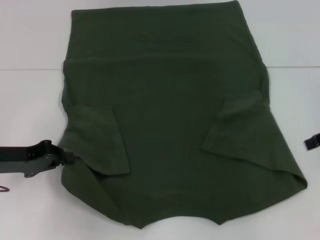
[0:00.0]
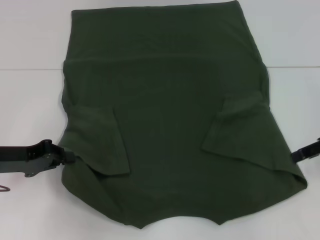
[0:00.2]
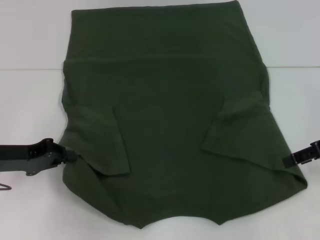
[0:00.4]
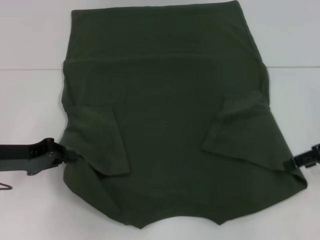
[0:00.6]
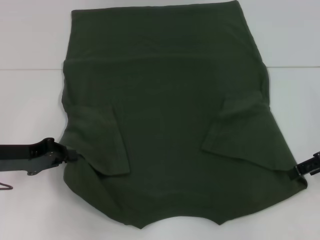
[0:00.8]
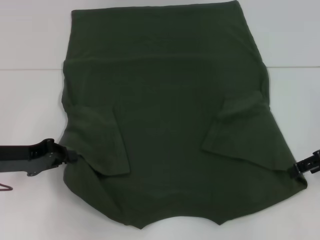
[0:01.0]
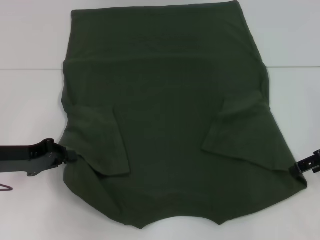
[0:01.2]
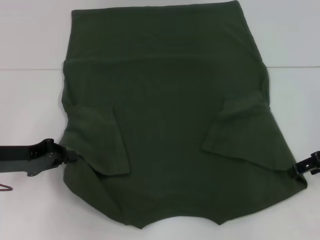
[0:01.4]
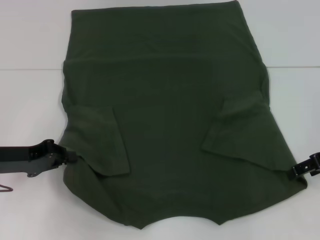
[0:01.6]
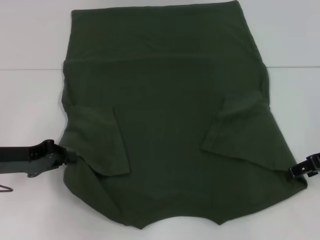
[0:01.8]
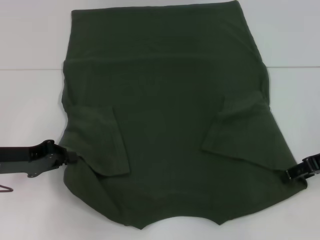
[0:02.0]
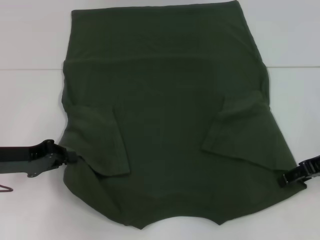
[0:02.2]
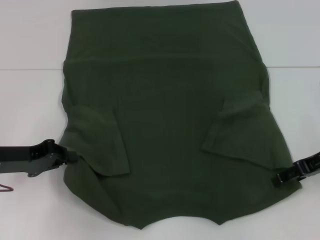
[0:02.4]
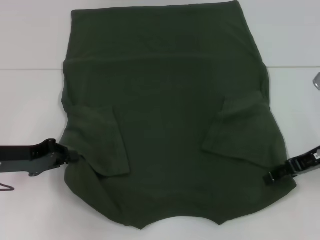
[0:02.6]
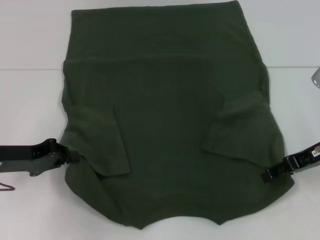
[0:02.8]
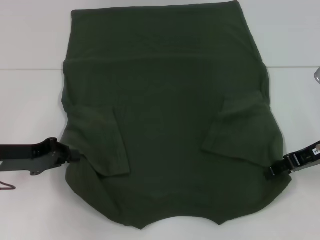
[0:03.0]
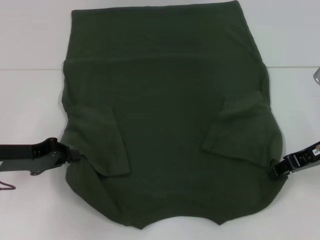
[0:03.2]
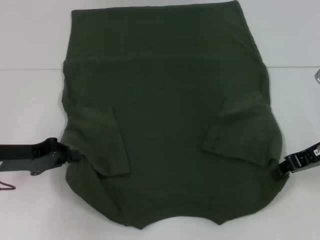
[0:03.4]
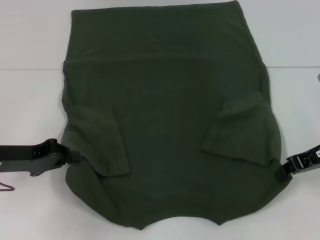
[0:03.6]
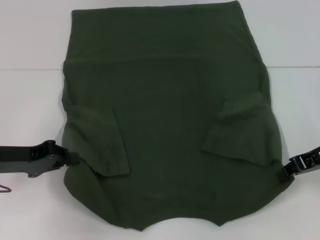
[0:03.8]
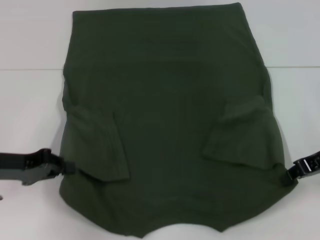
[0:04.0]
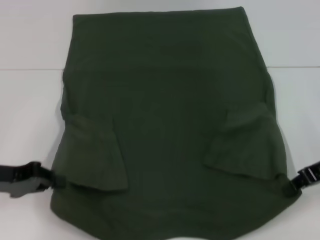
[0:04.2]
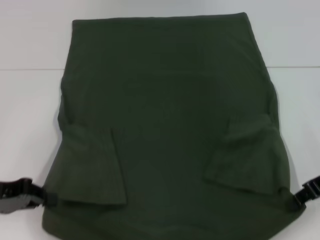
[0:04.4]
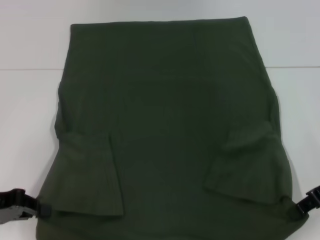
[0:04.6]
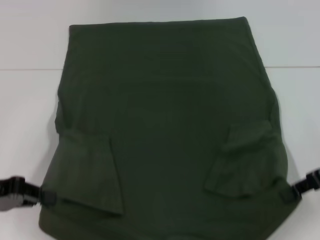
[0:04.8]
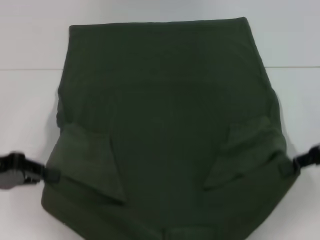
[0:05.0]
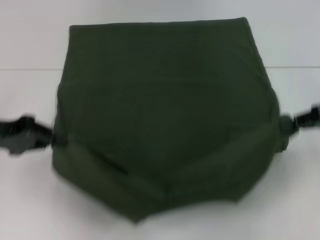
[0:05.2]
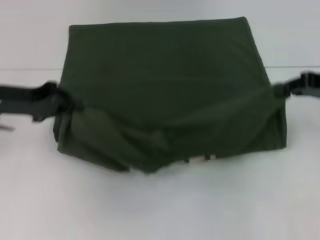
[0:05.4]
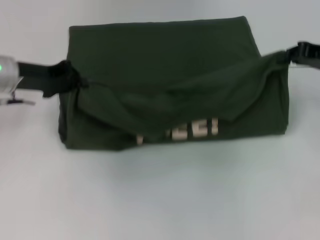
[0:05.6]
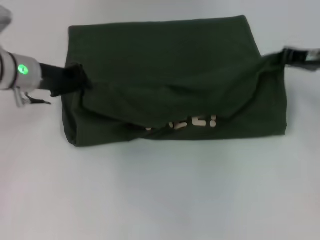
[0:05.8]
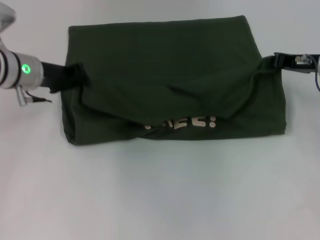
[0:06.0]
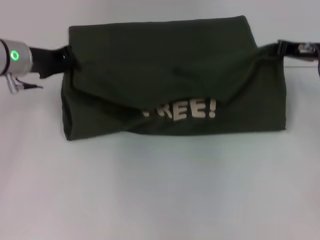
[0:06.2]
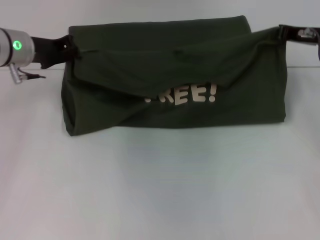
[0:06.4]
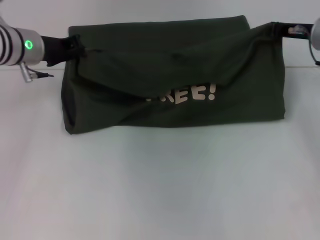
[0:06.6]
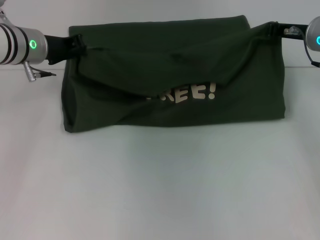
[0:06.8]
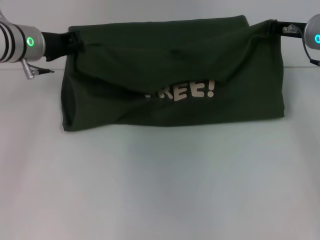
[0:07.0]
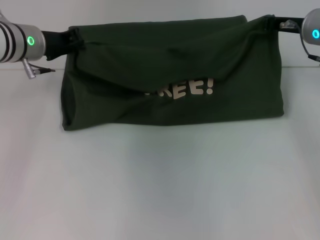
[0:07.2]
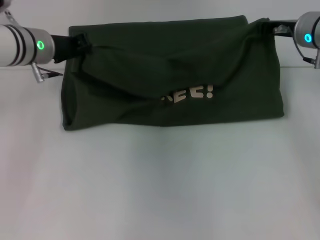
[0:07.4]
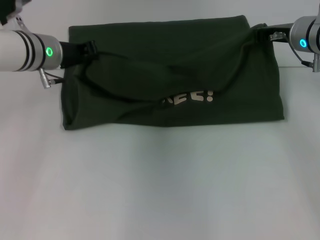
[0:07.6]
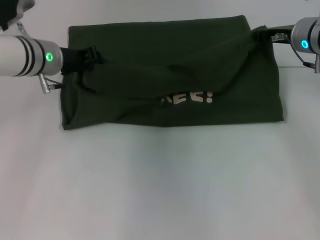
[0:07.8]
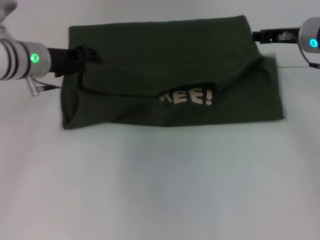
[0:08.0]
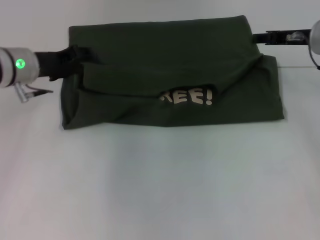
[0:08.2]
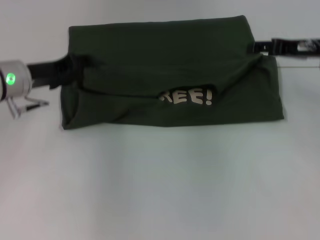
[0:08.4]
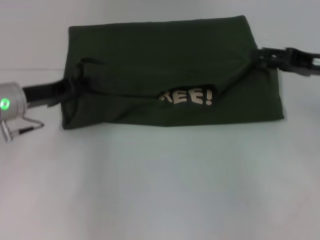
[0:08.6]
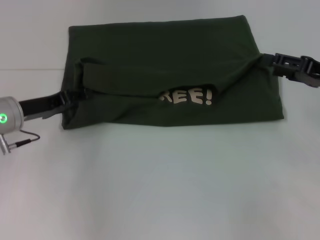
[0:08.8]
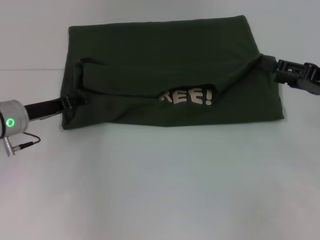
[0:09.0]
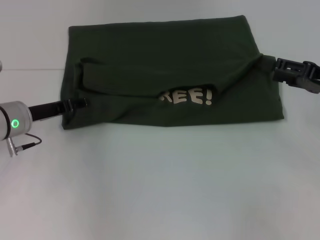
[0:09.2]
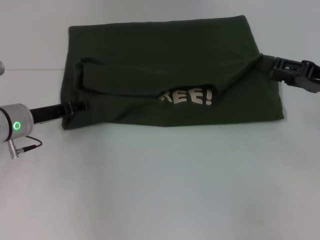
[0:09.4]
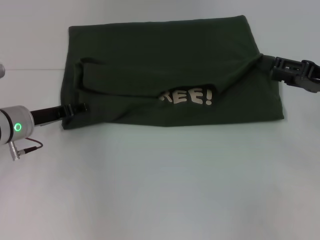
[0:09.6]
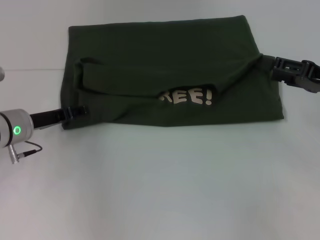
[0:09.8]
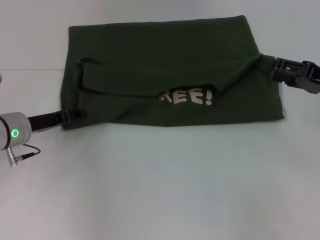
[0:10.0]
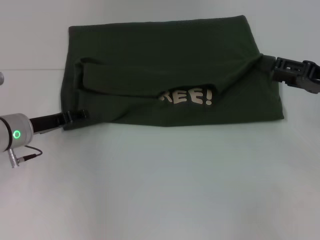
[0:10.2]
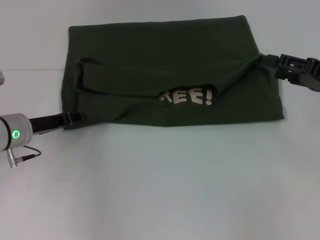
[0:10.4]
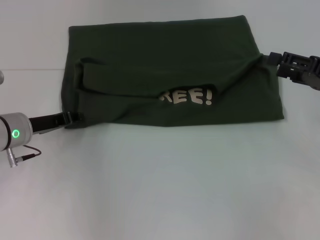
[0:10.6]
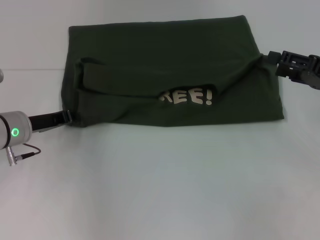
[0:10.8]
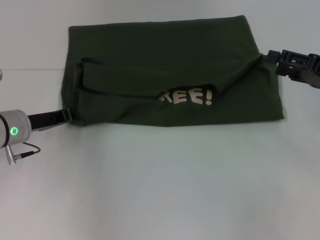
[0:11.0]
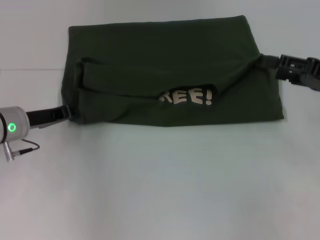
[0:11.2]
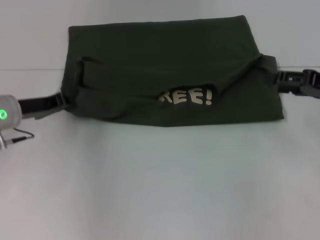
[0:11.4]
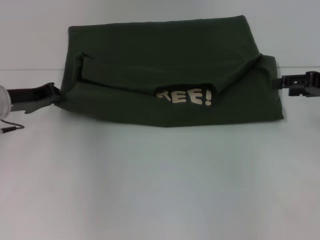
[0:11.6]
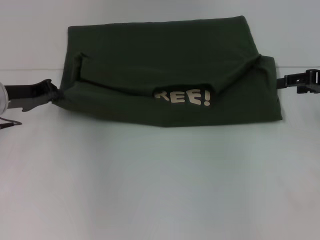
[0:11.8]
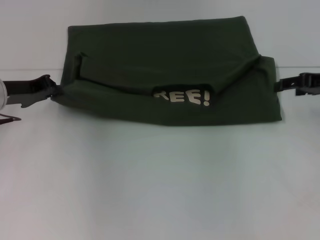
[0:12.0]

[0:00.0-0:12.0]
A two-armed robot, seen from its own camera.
Step, 0.0 to 3.6 s: Grab the bottom right corner with your right hand.
Step, 3.8 to 8.4 s: Fold the clothes with your left hand.
Step, 3.8 to 8.4 s: Fold the clothes with your right hand.
0.0 to 1.6 s: The right gripper shifts by about 5 cm.
1.6 to 3.0 s: There are only small adjustments of the grippers.
3.0 to 4.4 s: The right gripper closes its fingers; the left gripper ends up some 5 cm from where it was.
4.4 to 6.0 s: The left gripper travels forward and to the right by about 20 cm. The right gripper heads forward, covering about 10 cm.
6.0 to 7.6 s: The right gripper moves to the left, approximately 5 cm.
7.6 to 9.0 s: The right gripper heads backward and to the right, covering roughly 15 cm, and opens, while the left gripper shifts approximately 15 cm backward, downward and to the left, and opens.
9.0 to 10.4 s: There are only small adjustments of the grippers.
10.4 to 12.0 s: The right gripper moves forward, approximately 5 cm, while the left gripper travels upward by roughly 5 cm, and closes up.

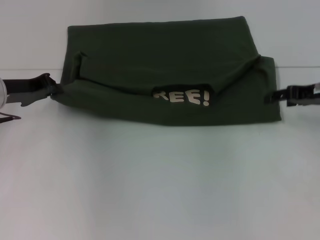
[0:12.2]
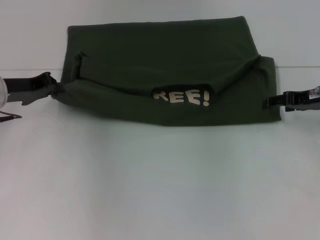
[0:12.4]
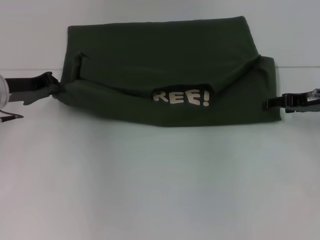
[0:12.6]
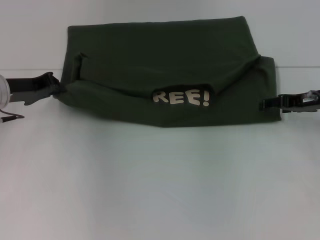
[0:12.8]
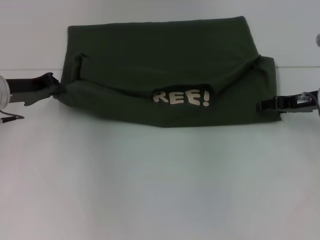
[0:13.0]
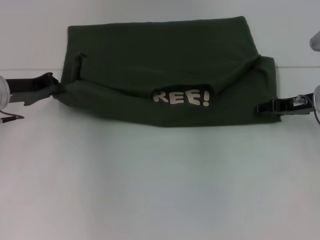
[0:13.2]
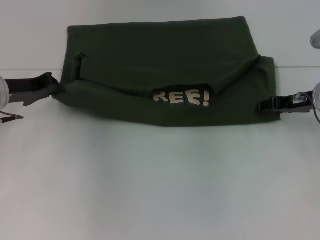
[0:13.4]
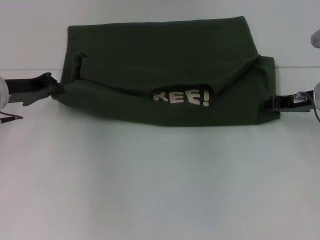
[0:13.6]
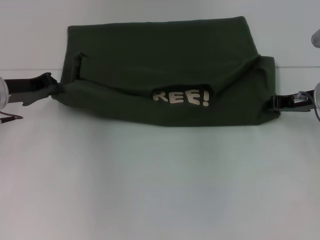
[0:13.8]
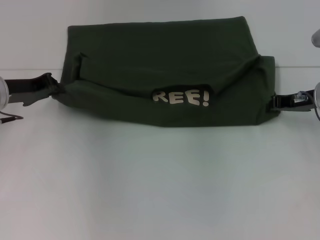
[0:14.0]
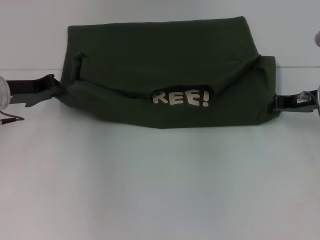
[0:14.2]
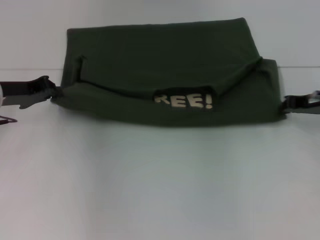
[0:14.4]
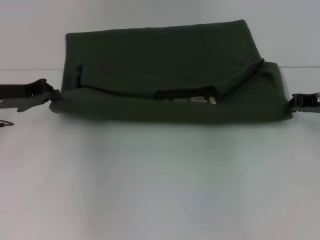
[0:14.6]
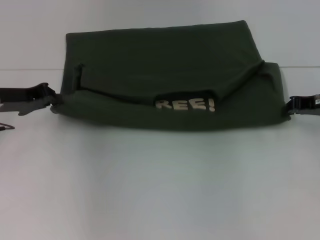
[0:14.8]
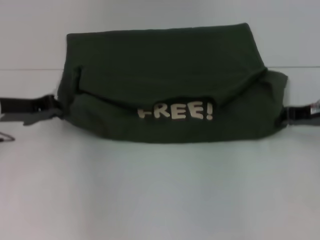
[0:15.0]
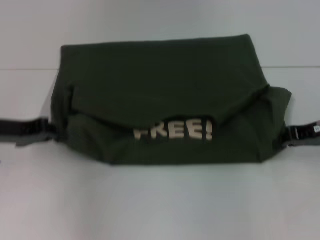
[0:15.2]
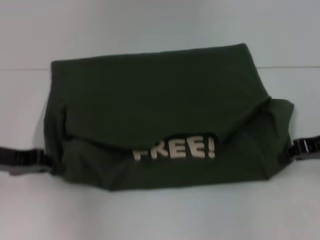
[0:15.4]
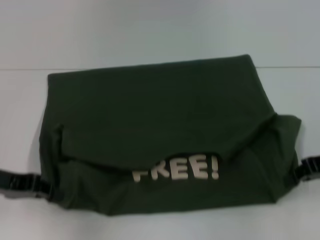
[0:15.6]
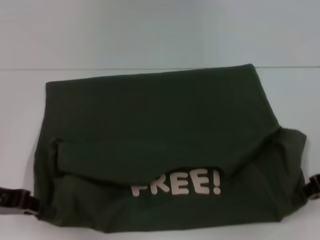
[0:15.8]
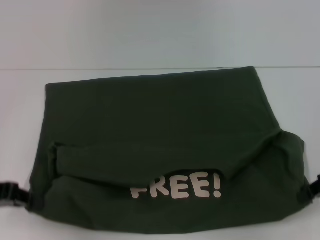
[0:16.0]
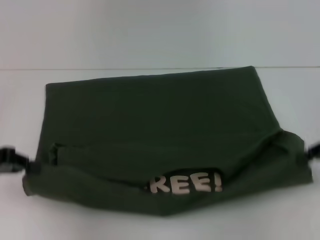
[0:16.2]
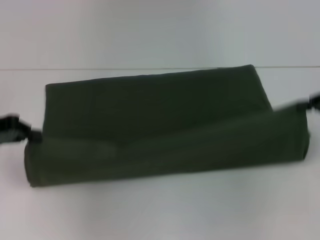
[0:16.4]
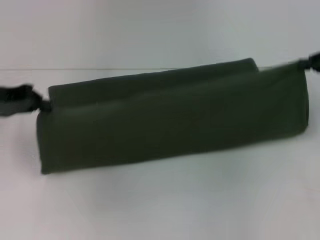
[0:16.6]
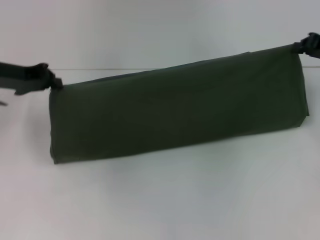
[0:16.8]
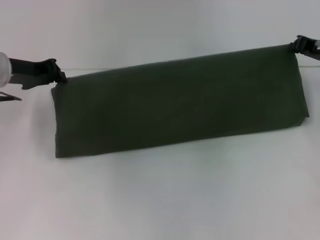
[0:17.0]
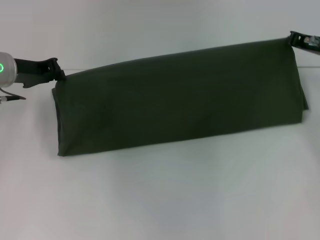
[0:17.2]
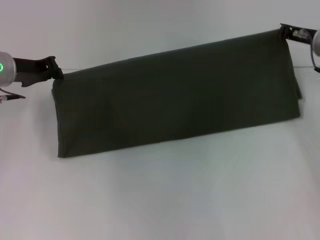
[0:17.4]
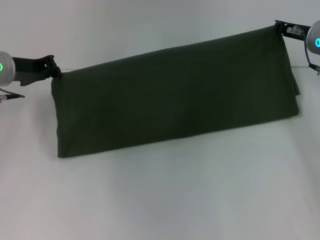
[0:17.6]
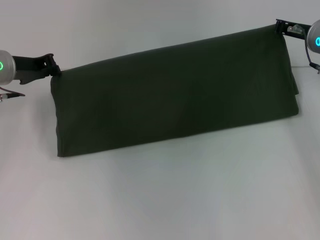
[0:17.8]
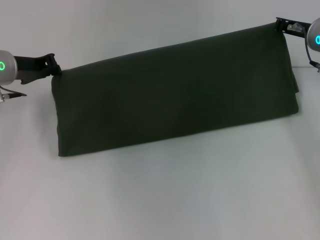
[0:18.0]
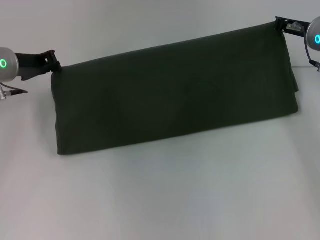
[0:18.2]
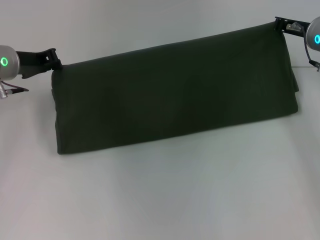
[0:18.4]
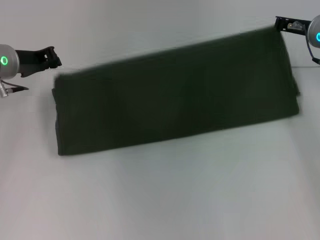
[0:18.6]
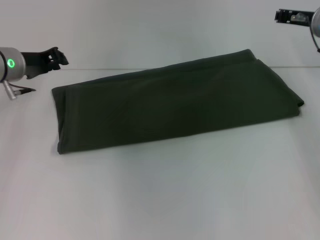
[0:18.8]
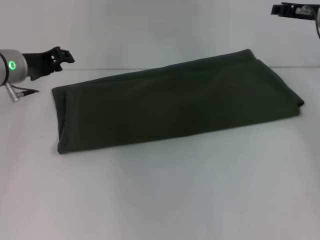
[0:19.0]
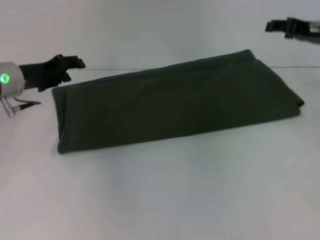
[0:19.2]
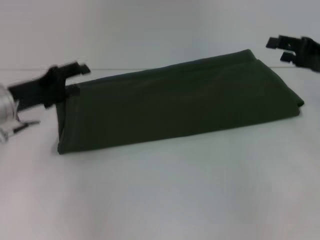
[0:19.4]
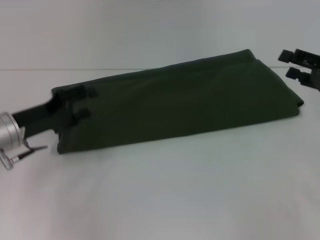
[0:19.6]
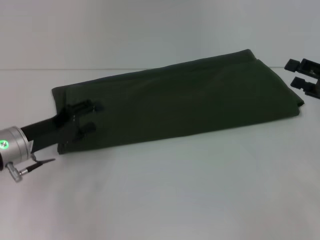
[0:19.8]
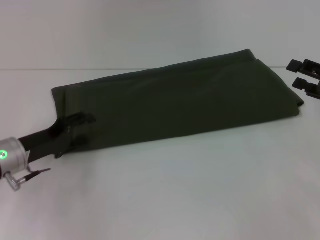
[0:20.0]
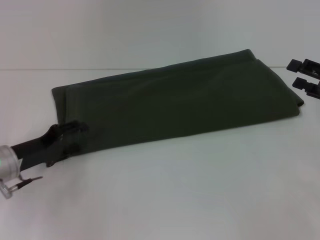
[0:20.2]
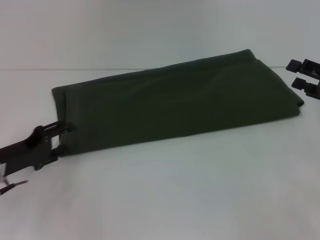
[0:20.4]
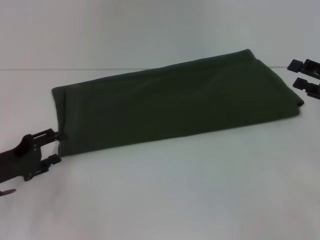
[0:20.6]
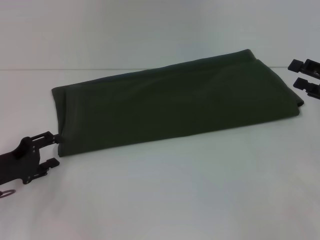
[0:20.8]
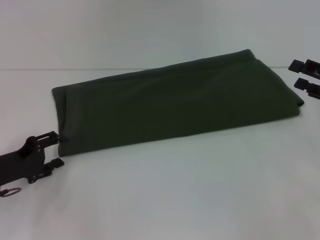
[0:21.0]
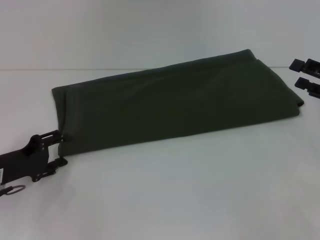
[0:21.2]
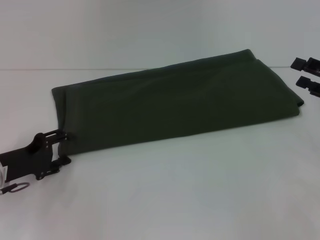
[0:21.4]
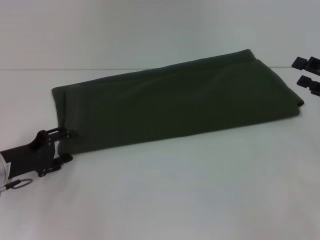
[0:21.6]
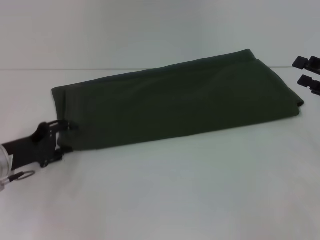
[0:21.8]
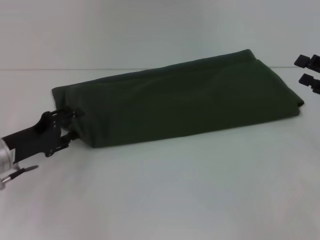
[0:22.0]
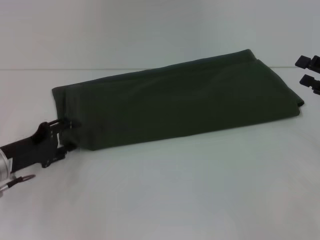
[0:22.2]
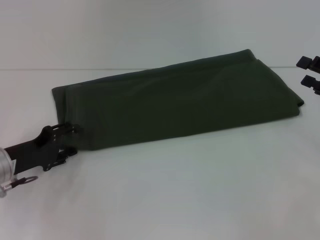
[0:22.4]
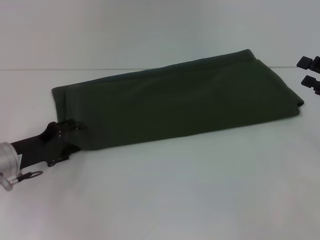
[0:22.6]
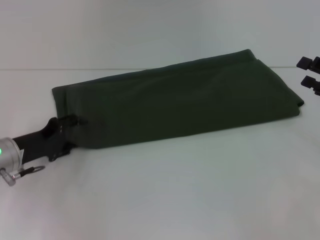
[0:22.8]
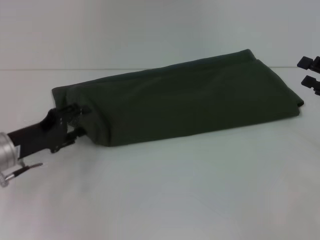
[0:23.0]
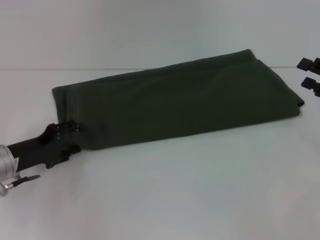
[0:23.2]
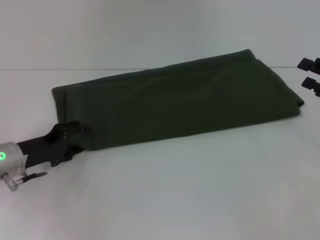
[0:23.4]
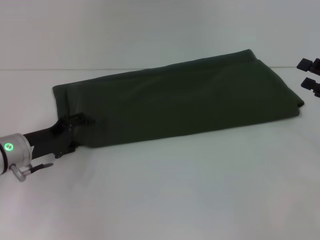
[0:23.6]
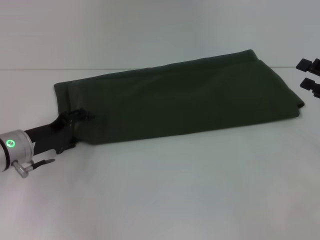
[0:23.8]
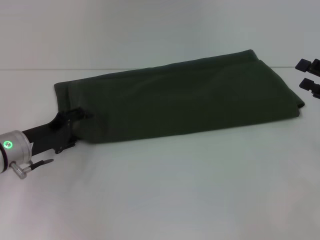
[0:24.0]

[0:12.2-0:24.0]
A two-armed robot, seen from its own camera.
Step, 12.2 to 15.8 s: Pull the clothes with your left hand.
Step, 12.2 to 15.8 s: Pull the clothes with your right hand.
Step, 16.0 to 19.0 s: Fold the clothes with your right hand.
12.2 to 13.6 s: The grippers stay close to where they were, moving slightly.
13.6 to 15.2 s: The grippers both shift backward by some 5 cm. The right gripper closes up.
15.2 to 16.6 s: The left gripper moves about 5 cm. Meanwhile the right gripper goes roughly 5 cm upward.
16.6 to 18.2 s: The left gripper travels forward by roughly 5 cm. Meanwhile the right gripper heads to the left and forward, covering approximately 10 cm.
18.2 to 19.6 s: The left gripper shifts about 10 cm backward and downward, and opens its fingers. The right gripper moves backward and to the right, approximately 15 cm, and opens its fingers.
19.6 to 21.0 s: The left gripper shifts by some 10 cm.
21.0 to 22.6 s: The grippers stay close to where they were, moving slightly.
22.6 to 24.0 s: The grippers move only a little.
